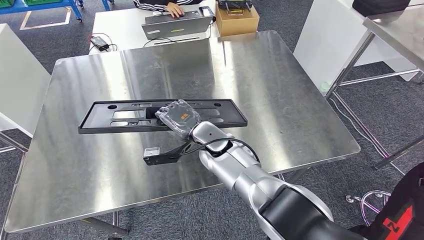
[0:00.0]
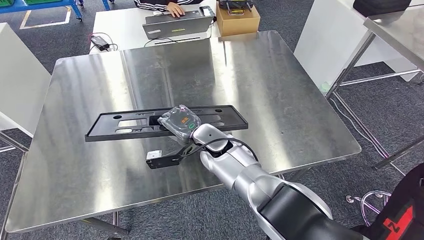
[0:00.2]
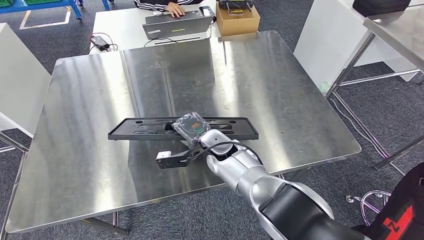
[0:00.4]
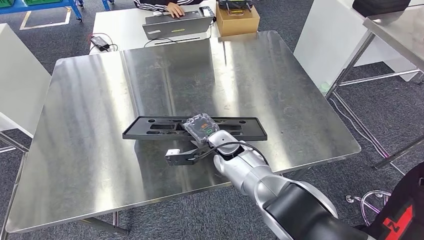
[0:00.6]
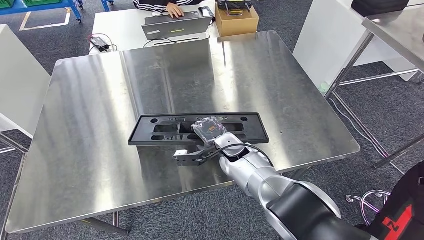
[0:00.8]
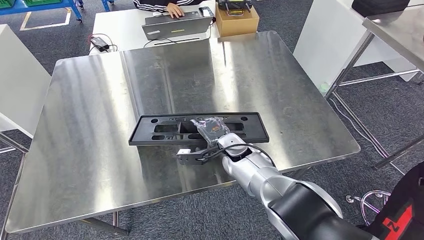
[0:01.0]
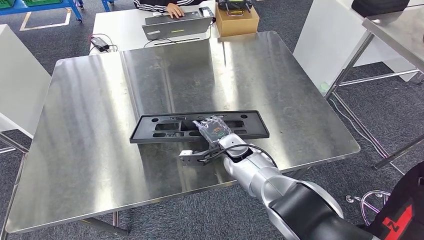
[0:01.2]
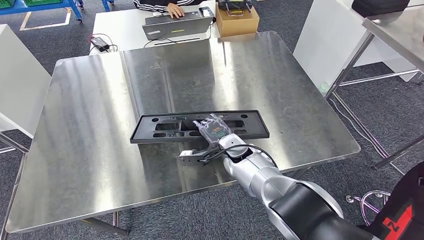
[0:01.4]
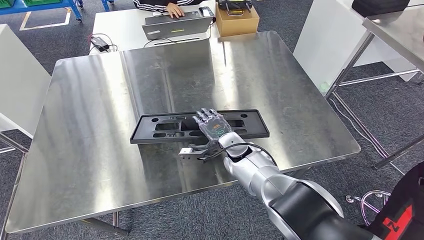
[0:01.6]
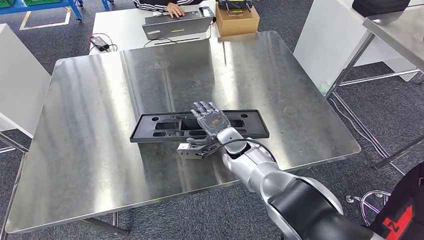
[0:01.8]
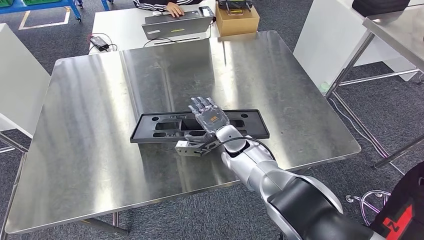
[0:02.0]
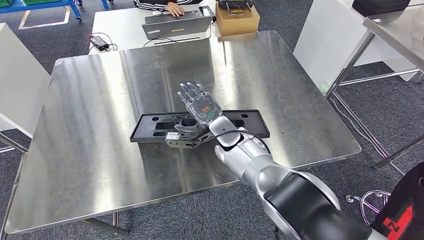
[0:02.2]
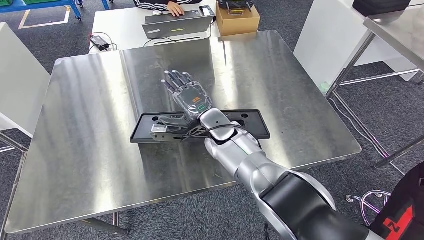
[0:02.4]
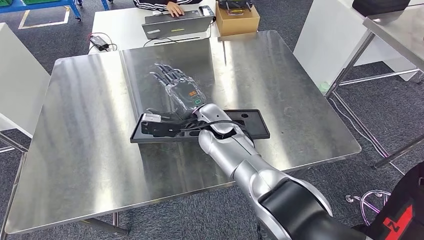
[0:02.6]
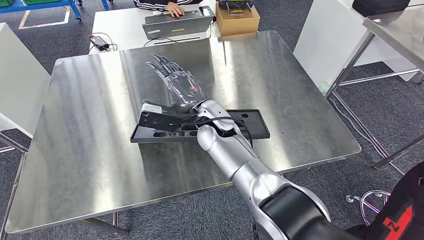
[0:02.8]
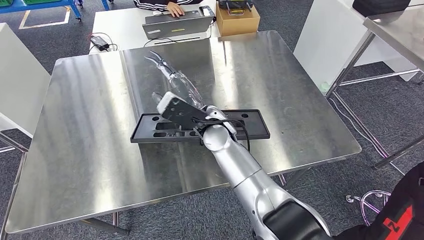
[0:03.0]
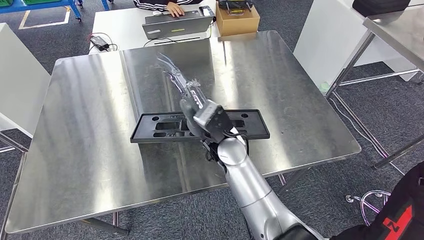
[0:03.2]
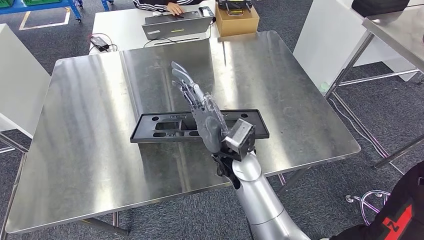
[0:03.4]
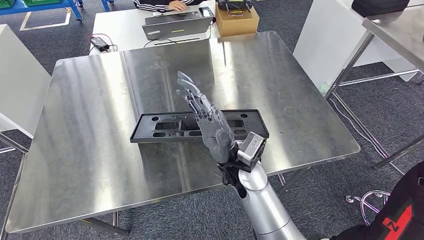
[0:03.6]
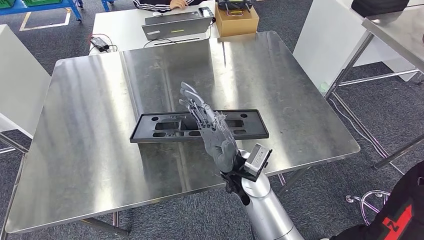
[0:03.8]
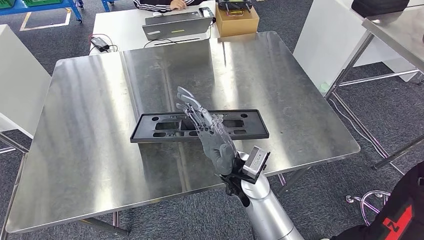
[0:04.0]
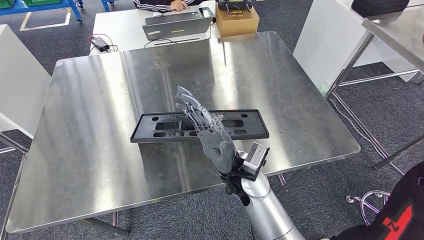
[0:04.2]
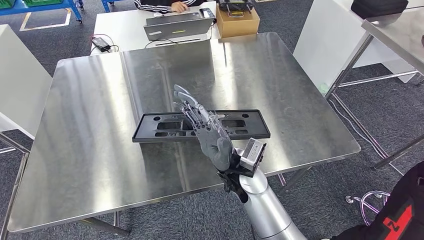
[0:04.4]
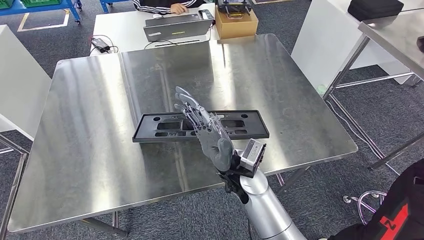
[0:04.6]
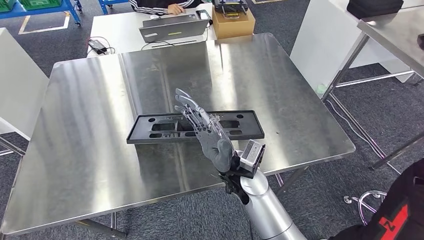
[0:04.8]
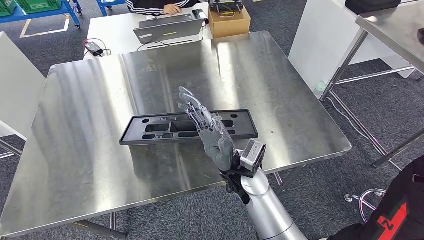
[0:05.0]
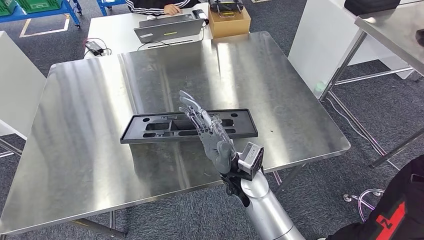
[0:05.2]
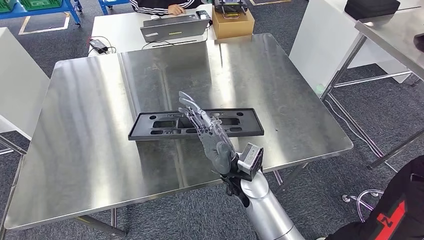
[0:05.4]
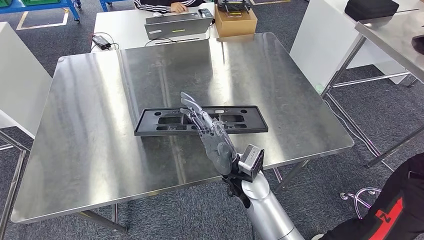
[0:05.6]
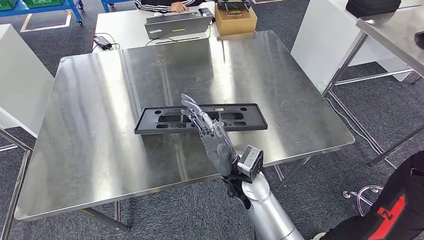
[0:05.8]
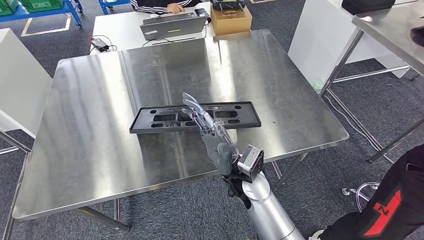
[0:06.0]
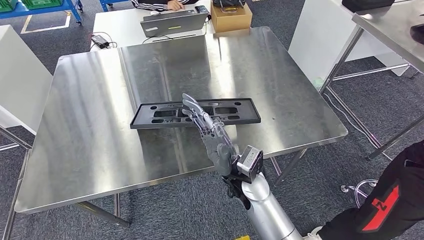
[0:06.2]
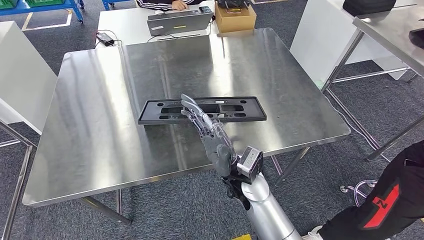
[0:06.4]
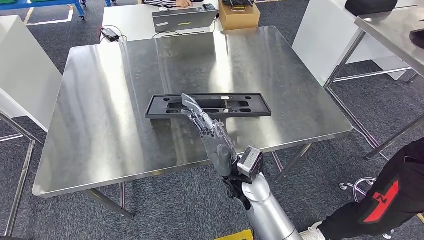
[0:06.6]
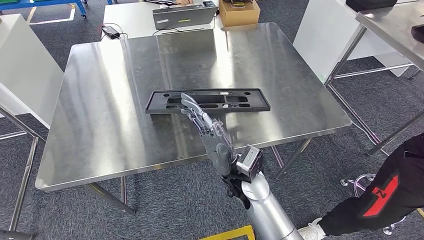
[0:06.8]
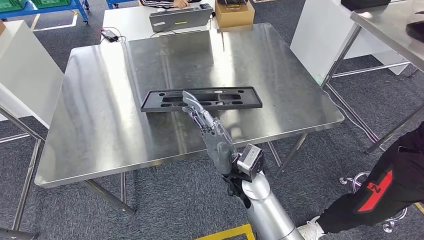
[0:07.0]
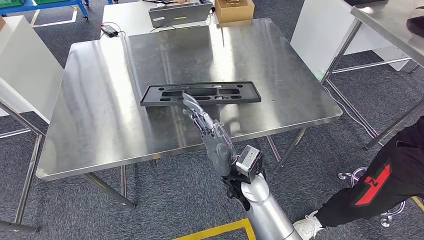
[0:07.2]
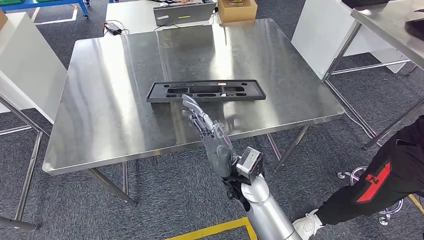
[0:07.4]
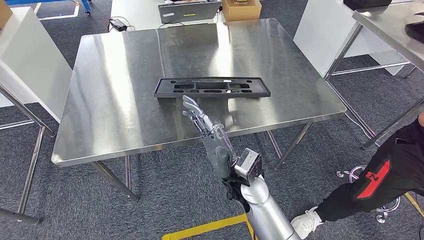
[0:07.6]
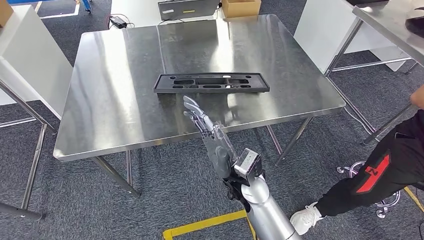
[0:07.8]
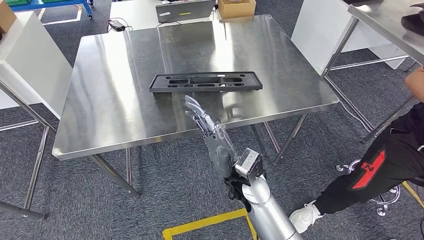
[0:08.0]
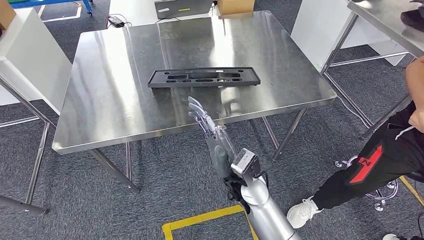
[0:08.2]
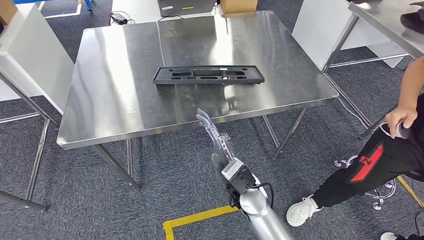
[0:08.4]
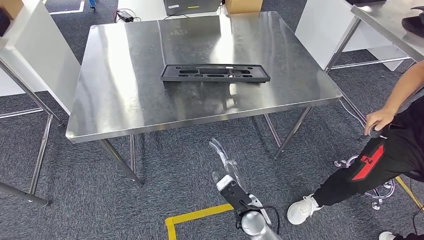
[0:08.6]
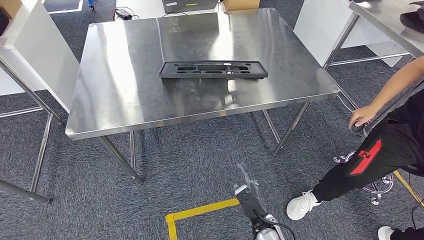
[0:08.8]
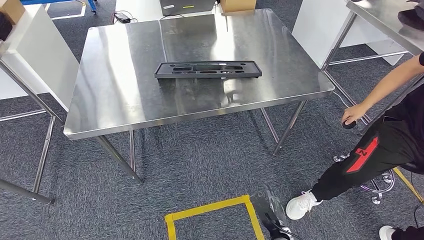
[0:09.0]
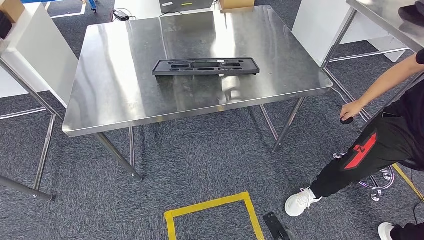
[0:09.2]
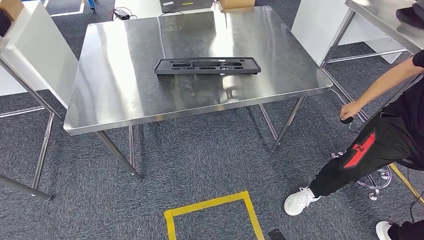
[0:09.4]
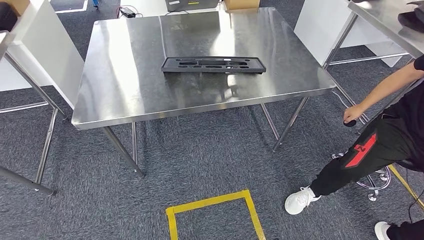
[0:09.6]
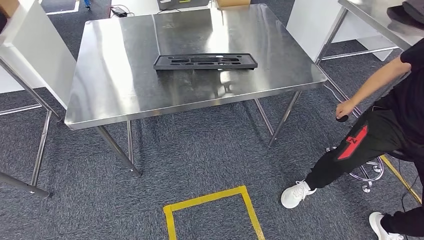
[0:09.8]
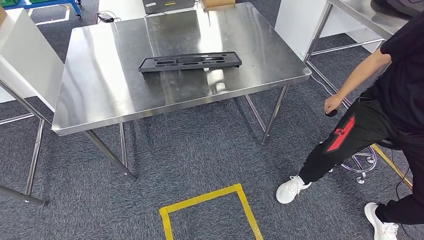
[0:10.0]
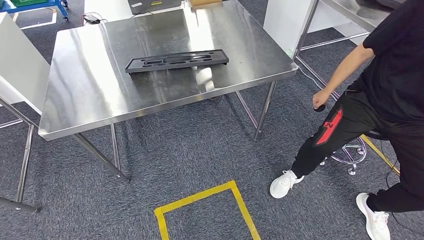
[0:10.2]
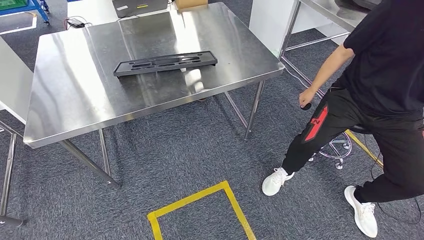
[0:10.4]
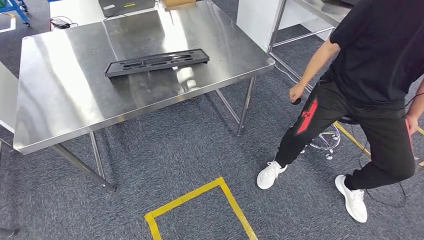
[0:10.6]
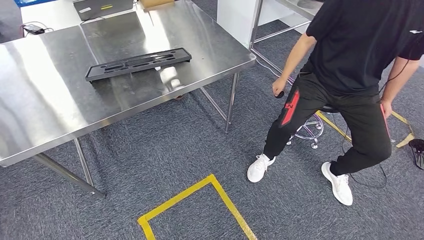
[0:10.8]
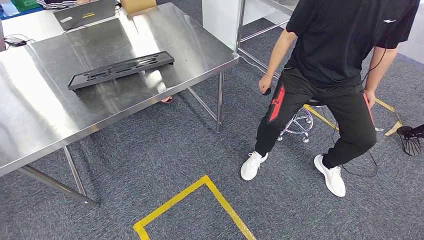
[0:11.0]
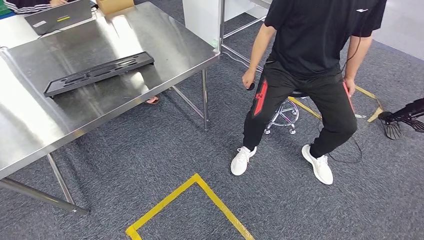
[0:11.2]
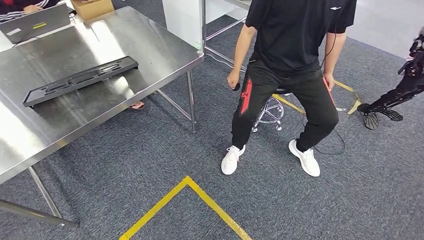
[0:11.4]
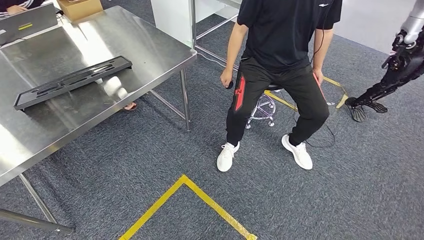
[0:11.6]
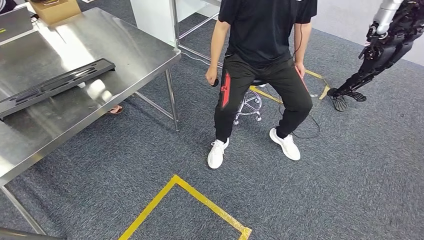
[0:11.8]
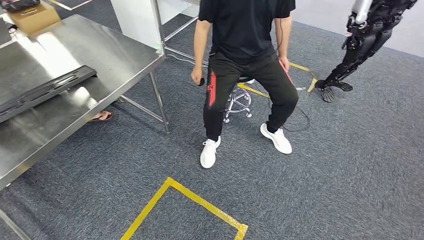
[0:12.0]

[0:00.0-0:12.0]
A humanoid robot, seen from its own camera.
Step, 0:00.0 to 0:10.6: Insert the large material into the corresponding slot on the workbench.
0:00.0 to 0:01.6: The right hand heads to the right and downward, covering some 10 cm.
0:01.6 to 0:03.0: The right hand moves upward and to the left, roughly 15 cm.
0:03.0 to 0:04.4: The right hand travels backward by about 10 cm.

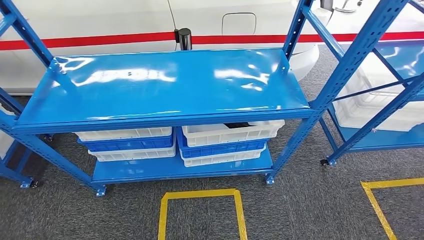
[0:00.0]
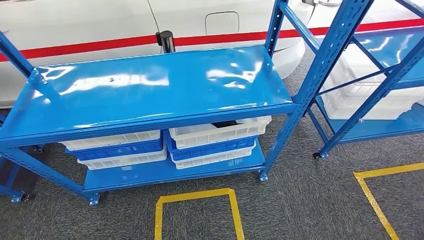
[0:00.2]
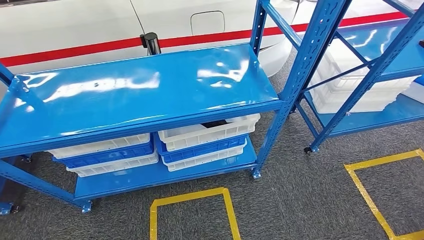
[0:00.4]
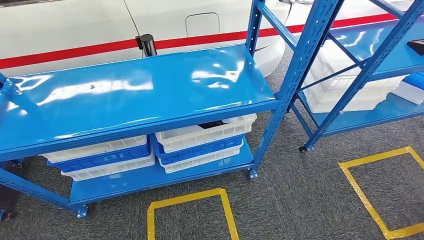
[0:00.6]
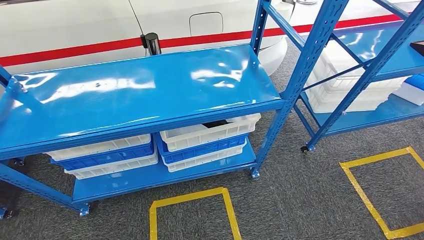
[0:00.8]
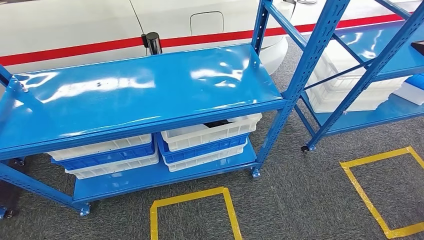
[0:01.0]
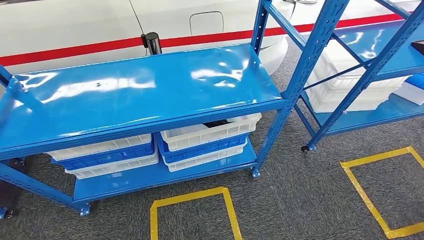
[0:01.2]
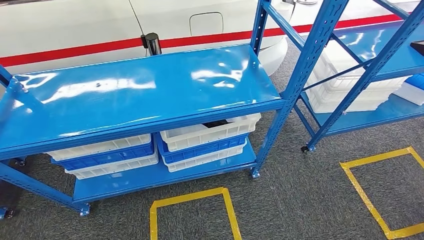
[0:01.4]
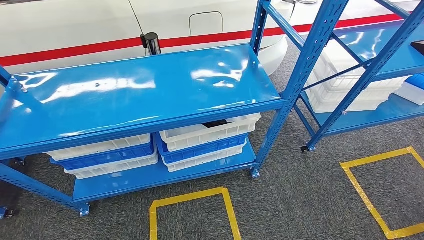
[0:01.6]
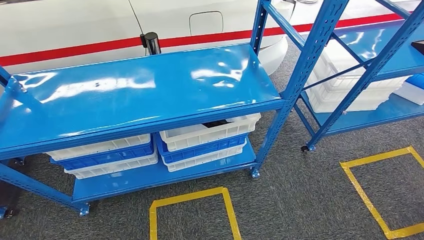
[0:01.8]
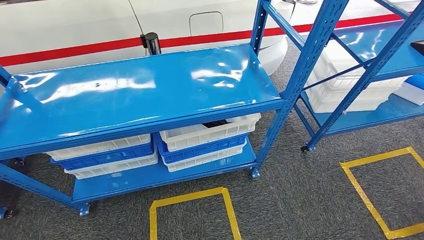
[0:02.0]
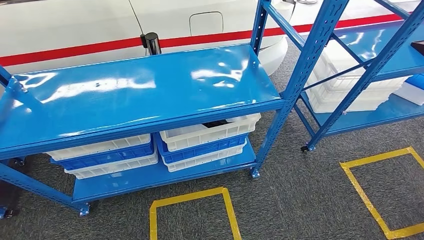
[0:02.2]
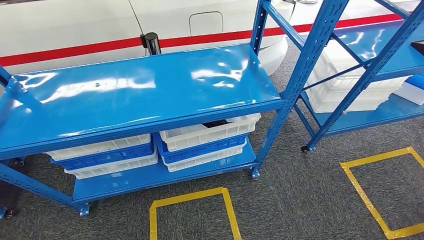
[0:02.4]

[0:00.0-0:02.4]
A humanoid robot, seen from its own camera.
Step, 0:00.0 to 0:02.4: Return to the initial position at the shelf.
0:01.2 to 0:02.4: There are only small adjustments of the hands.

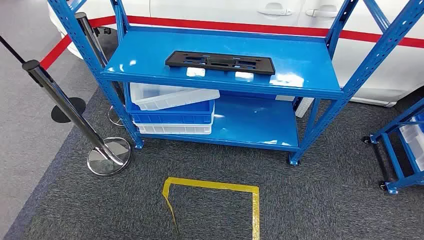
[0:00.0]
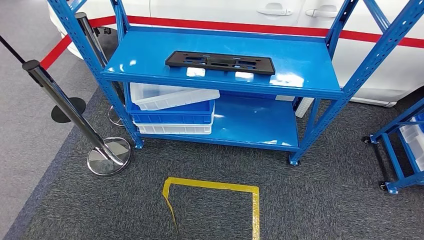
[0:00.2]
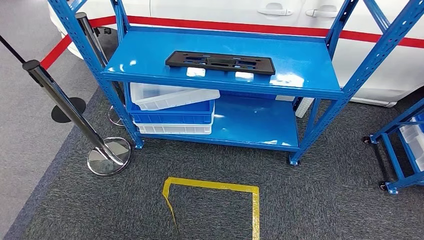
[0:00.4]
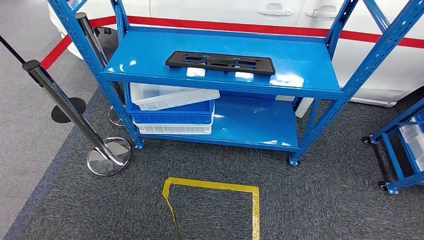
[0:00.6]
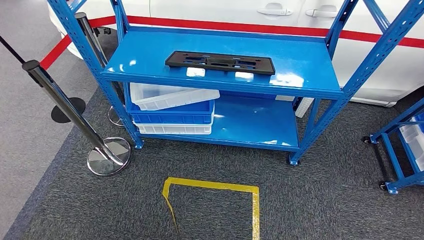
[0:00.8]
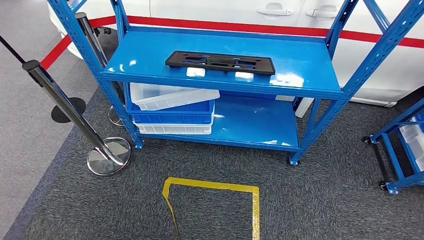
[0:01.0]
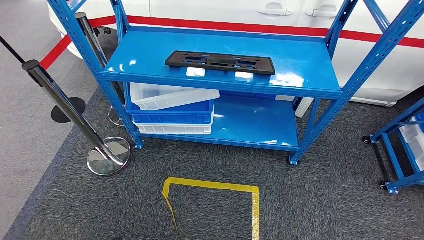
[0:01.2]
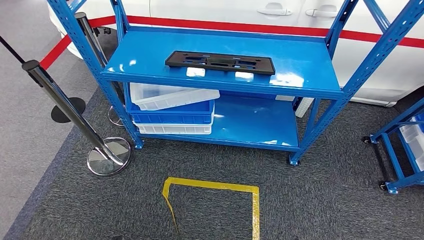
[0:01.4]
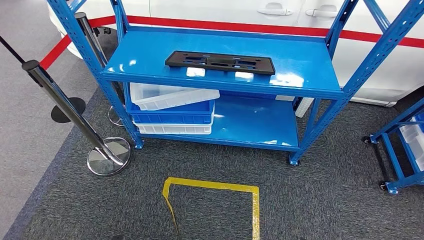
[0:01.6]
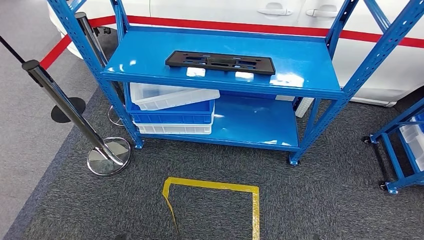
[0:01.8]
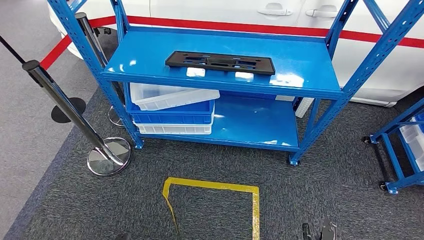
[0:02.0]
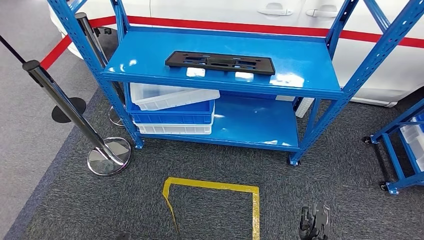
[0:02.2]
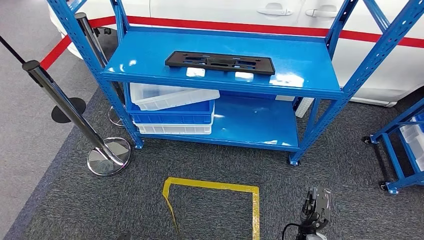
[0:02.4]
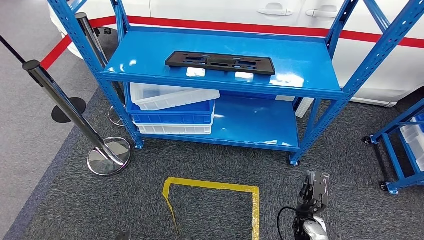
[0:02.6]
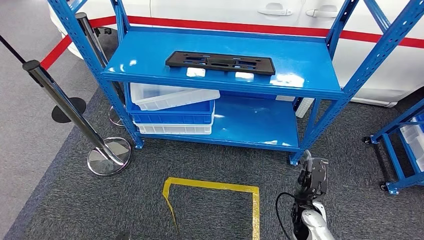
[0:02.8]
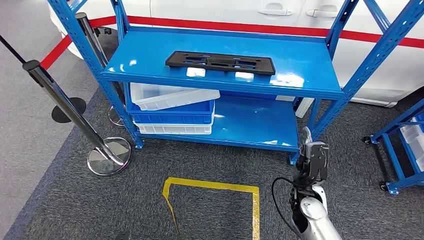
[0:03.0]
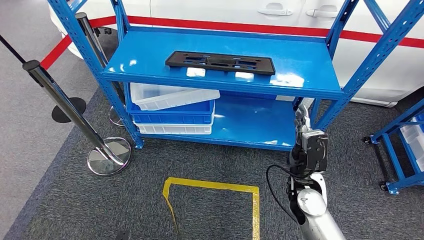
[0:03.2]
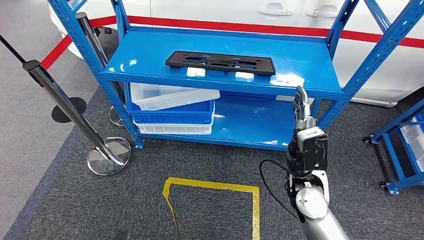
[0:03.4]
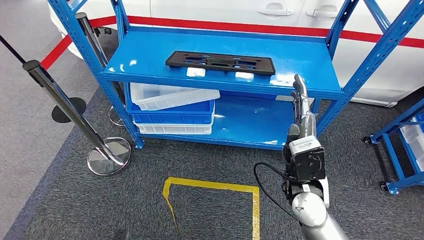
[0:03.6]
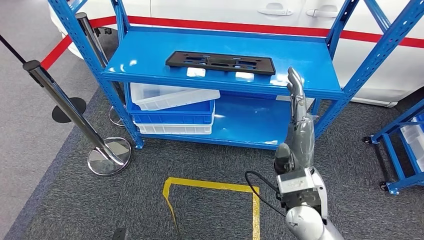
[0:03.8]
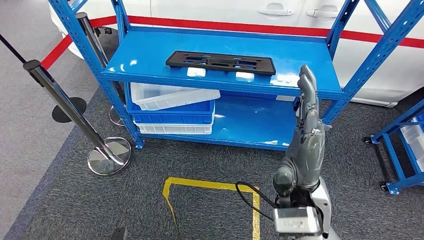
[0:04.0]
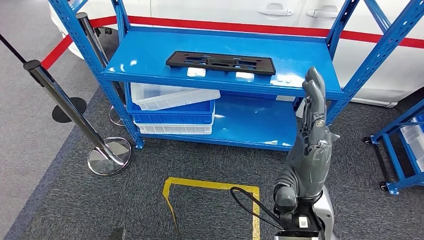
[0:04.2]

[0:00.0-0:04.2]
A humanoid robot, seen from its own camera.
0:01.4 to 0:02.8: The right hand moves forward and upward, some 25 cm.
0:02.8 to 0:04.2: The right hand is displaced upward and to the left by about 30 cm.
